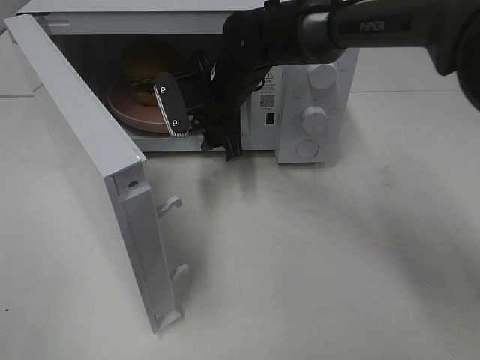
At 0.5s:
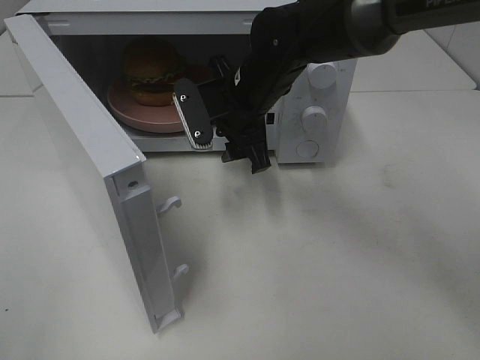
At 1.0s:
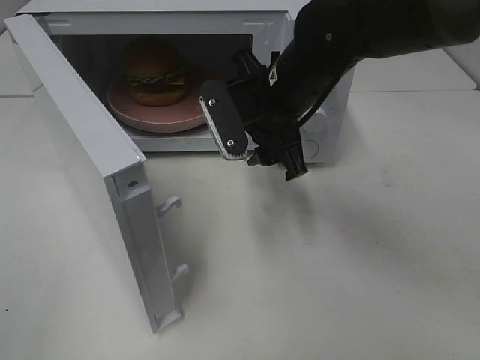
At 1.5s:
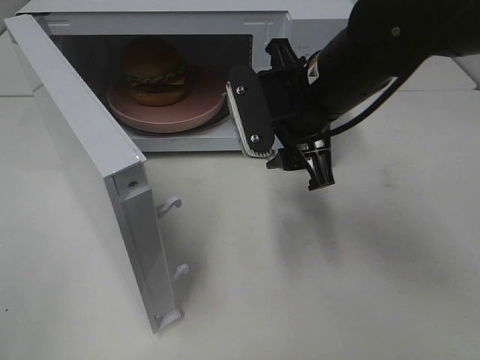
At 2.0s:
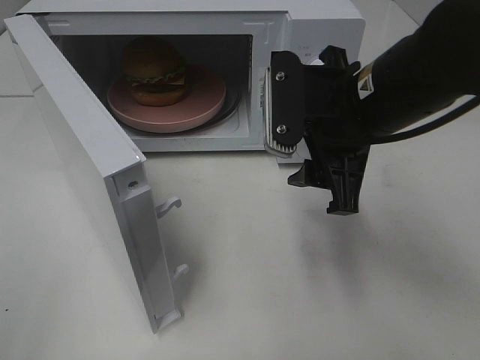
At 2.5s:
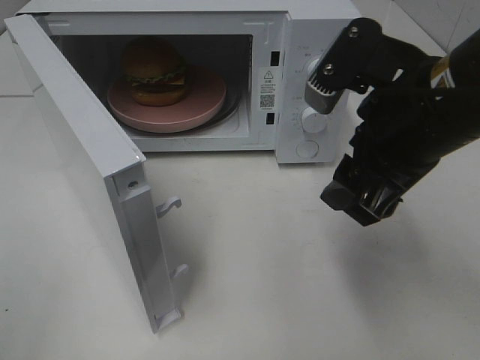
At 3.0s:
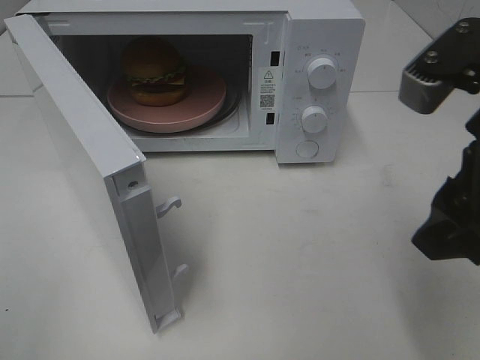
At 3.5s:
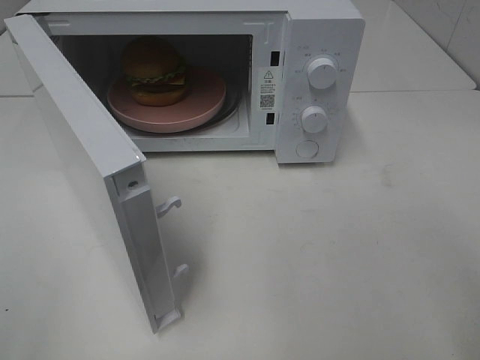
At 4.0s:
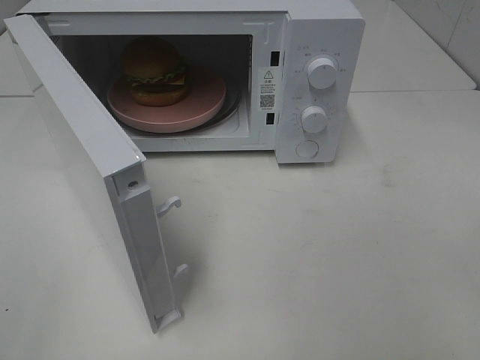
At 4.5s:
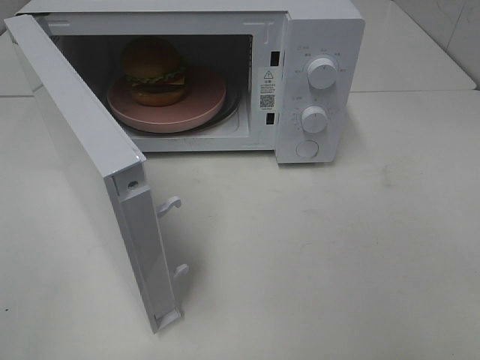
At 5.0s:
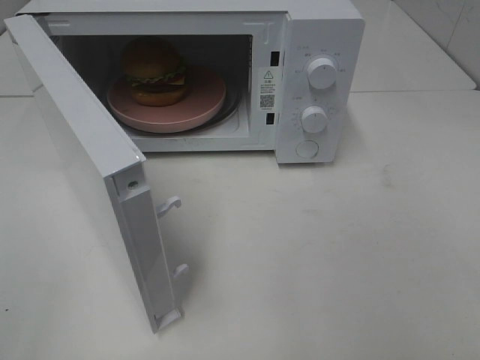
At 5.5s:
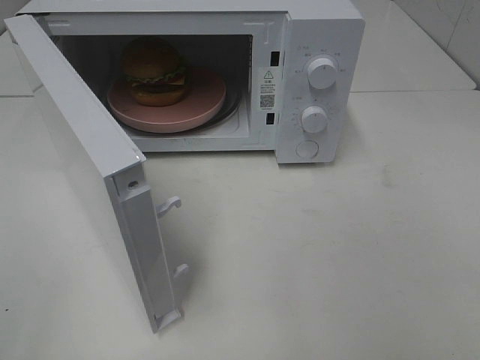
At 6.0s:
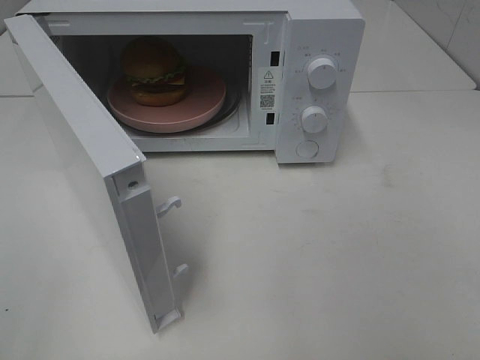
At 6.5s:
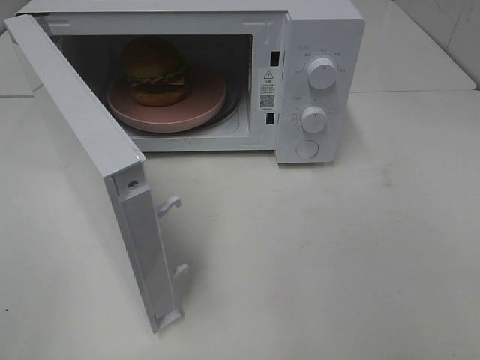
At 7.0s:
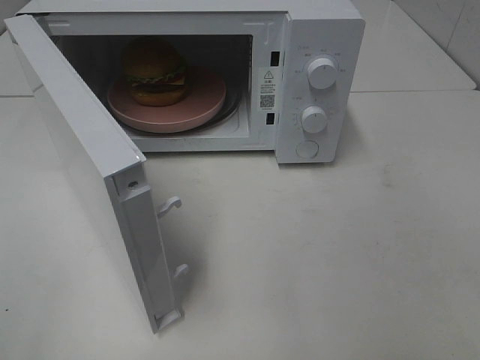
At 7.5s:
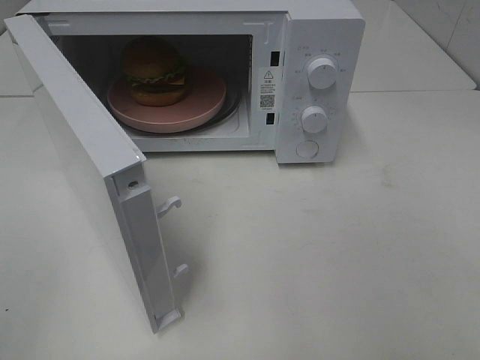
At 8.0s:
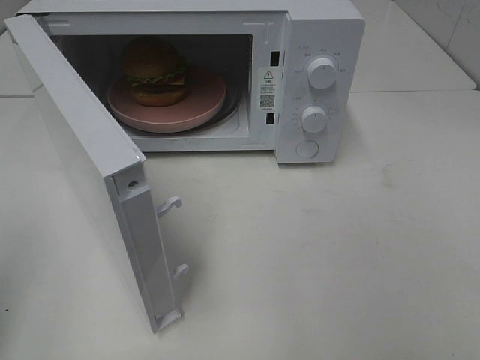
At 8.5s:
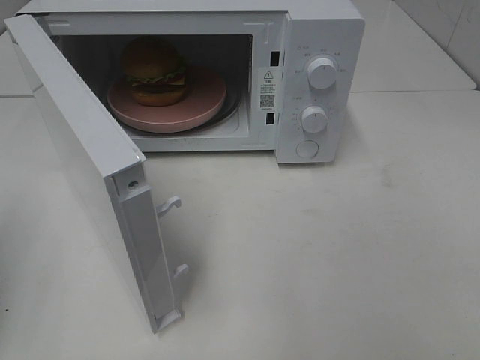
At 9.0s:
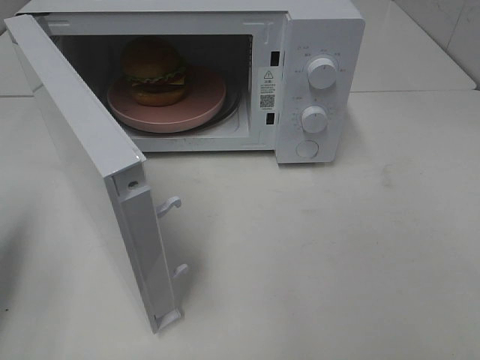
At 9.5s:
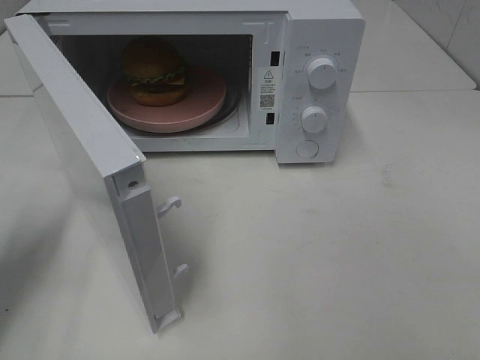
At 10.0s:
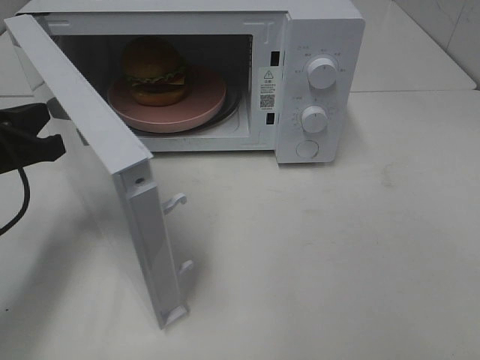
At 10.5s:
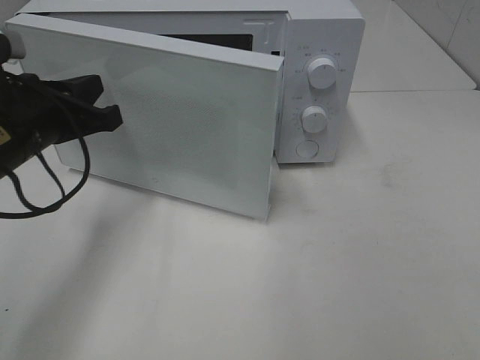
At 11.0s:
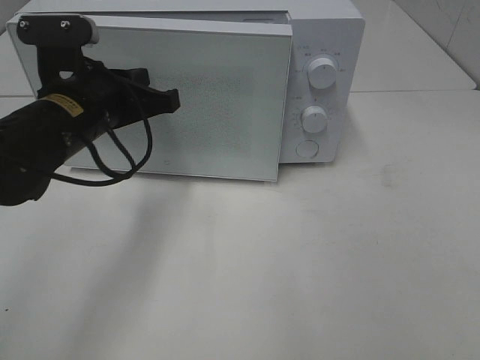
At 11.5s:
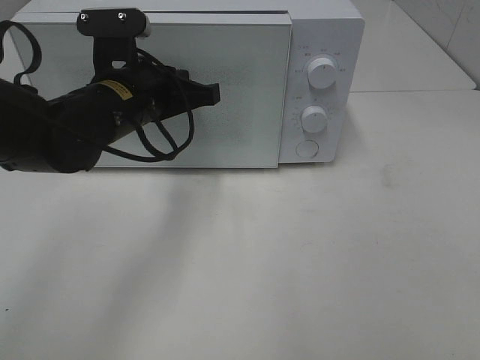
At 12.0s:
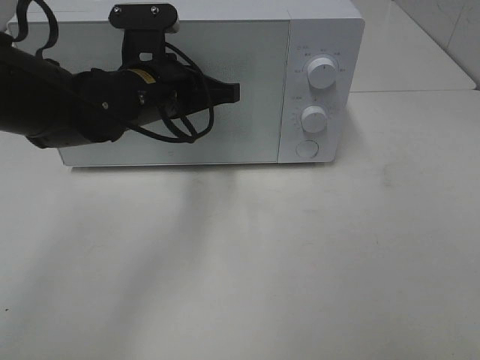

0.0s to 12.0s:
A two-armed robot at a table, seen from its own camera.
Task of the whole recording: Heat the burger.
0.0s to 2.0s: The right gripper shifts some 20 cm backward, to the right and upward.
2.0s to 4.0s: The right gripper shifts some 25 cm backward and to the right.
8.0s to 10.0s: The left gripper travels forward, downward and to the right by roughly 20 cm.
10.0s to 12.0s: The left gripper heads to the right and forward, covering about 20 cm.

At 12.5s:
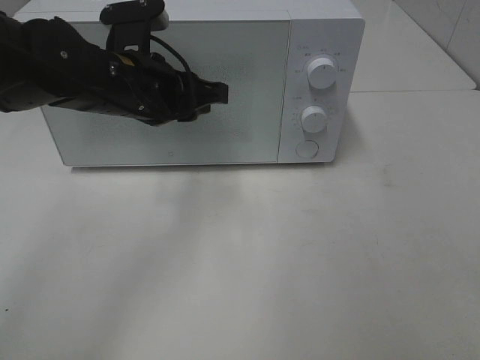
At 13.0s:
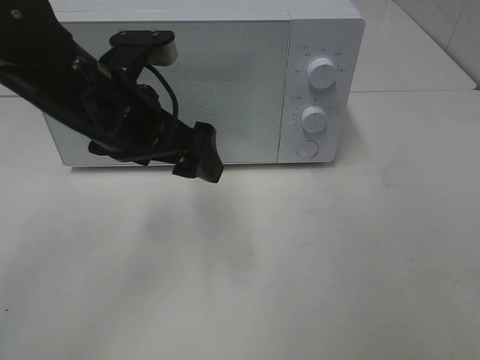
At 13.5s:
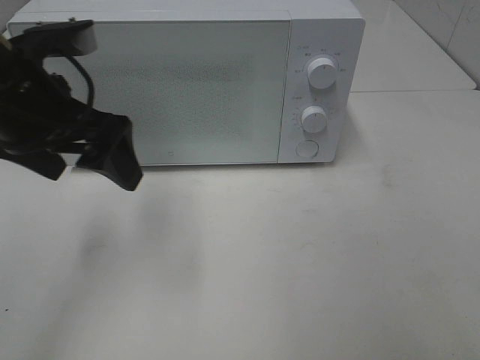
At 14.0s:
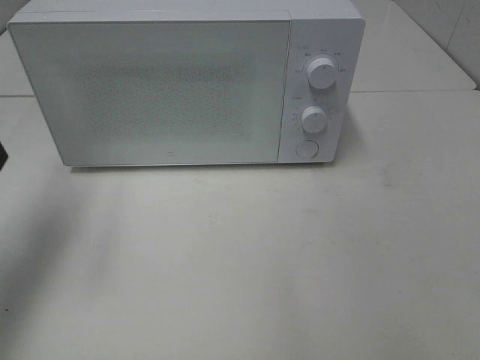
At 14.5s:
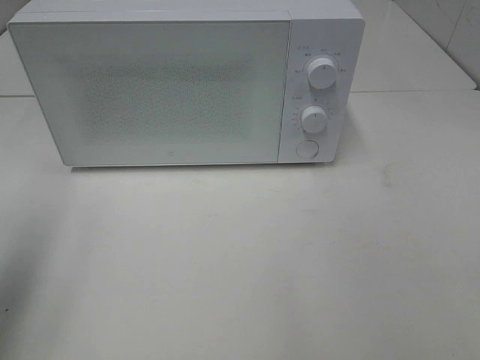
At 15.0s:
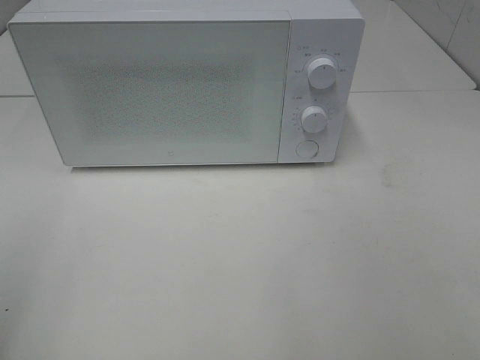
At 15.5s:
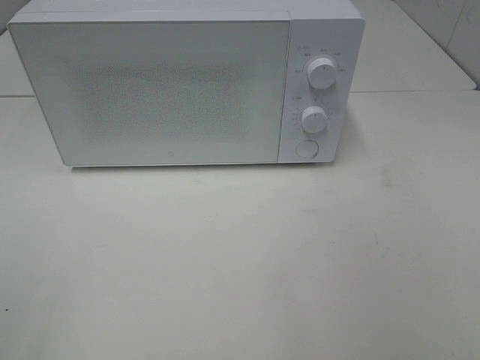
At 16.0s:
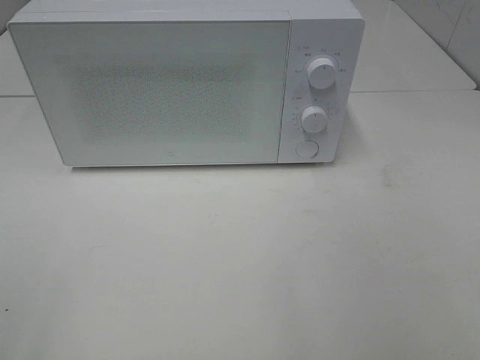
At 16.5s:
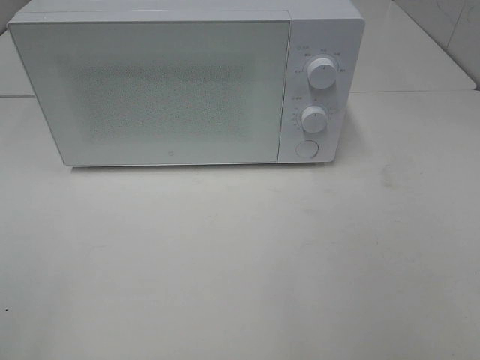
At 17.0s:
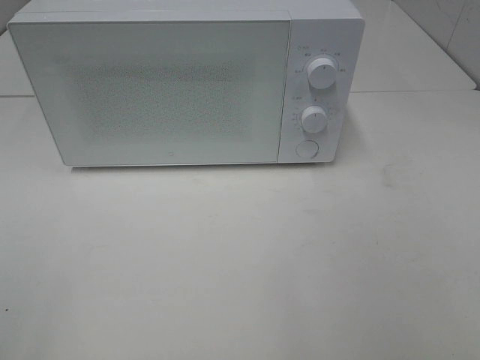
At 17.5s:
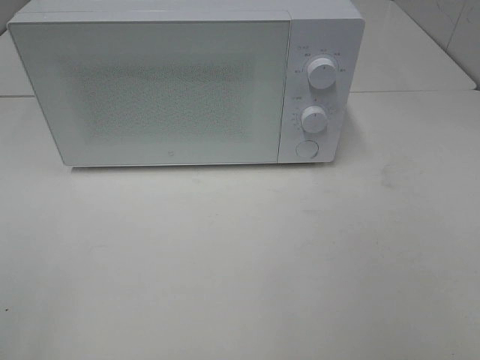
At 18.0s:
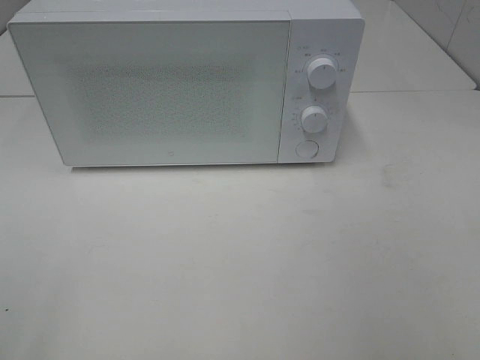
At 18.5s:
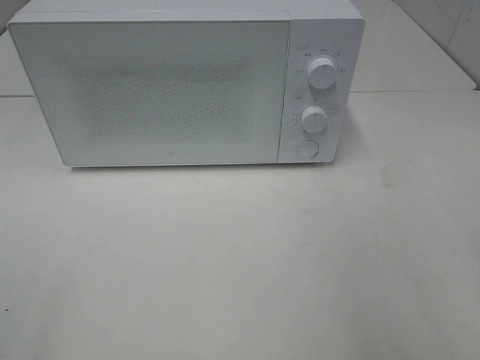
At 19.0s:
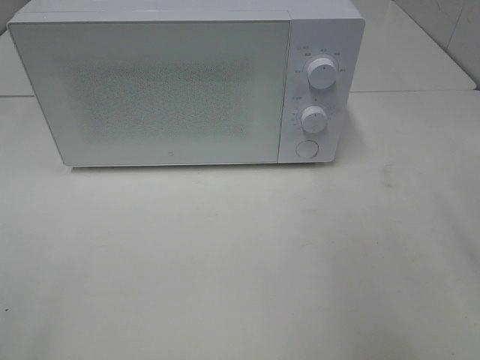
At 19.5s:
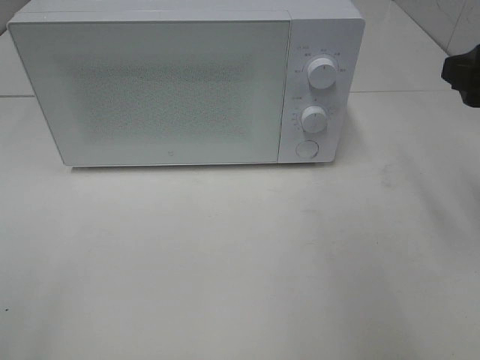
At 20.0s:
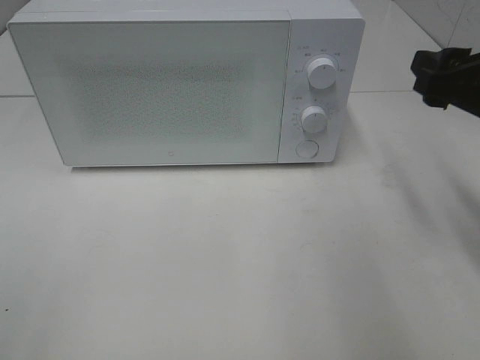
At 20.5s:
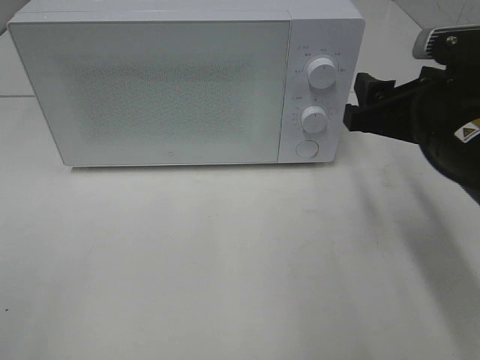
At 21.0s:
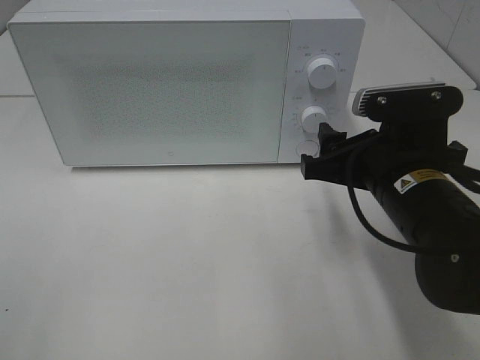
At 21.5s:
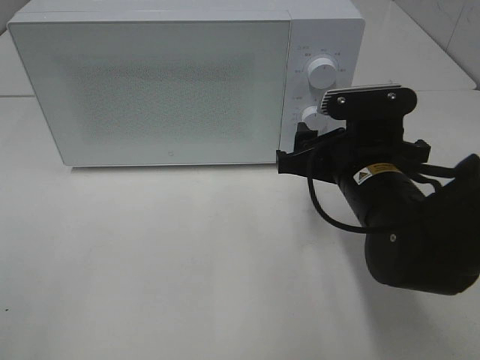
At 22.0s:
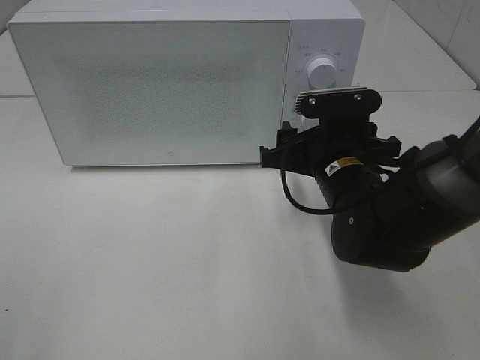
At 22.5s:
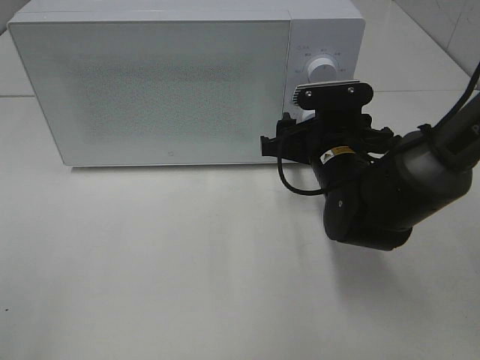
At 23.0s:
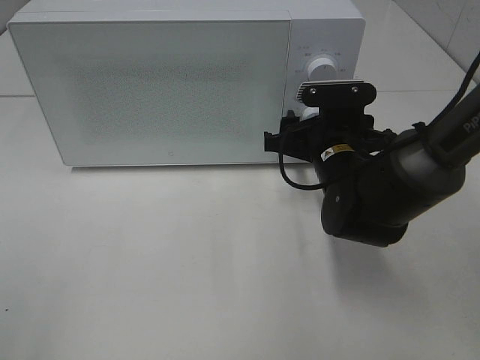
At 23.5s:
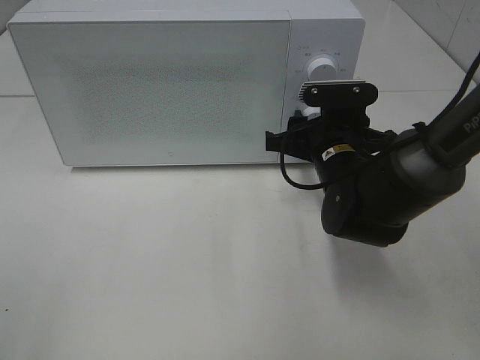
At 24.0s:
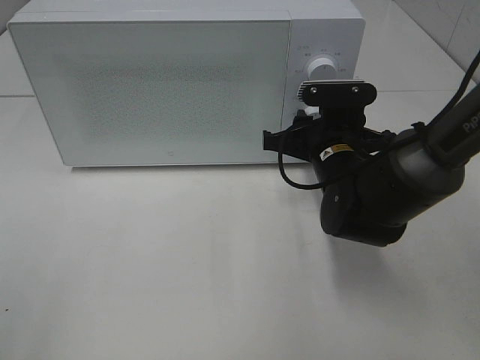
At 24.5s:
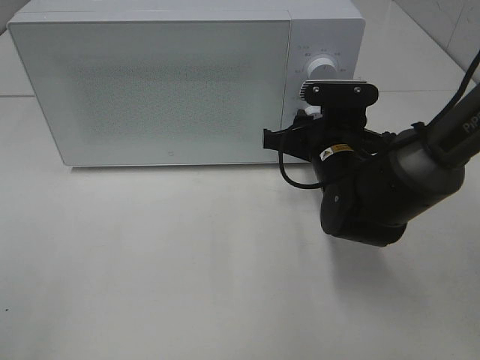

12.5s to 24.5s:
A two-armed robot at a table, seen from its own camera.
Task of the whole recording: Heat the burger.
12.5s to 14.5s: The left gripper heads to the left, backward and upward, covering roughly 30 cm, and opens its fingers.
14.5s to 16.5s: The left gripper heads backward, covering approximately 15 cm.
18.5s to 20.5s: The right gripper is displaced forward, downward and to the left by roughly 20 cm.
20.5s to 22.5s: The right gripper goes some 15 cm downward, forward and to the left.
22.5s to 24.5s: The grippers move only a little.

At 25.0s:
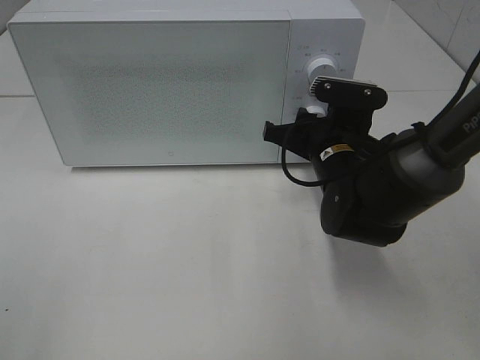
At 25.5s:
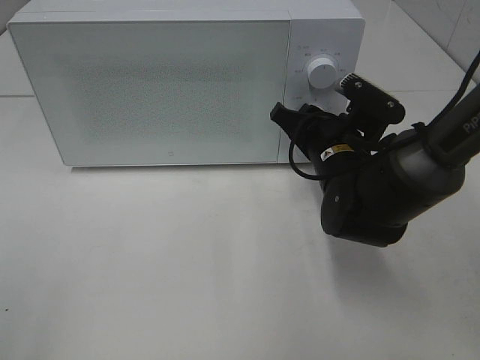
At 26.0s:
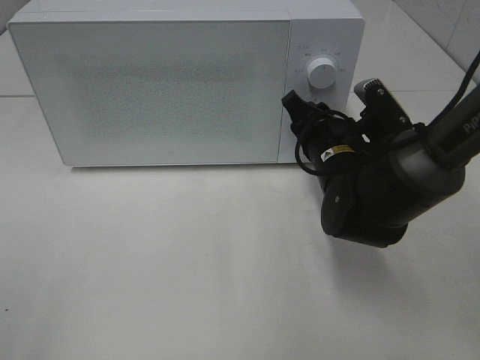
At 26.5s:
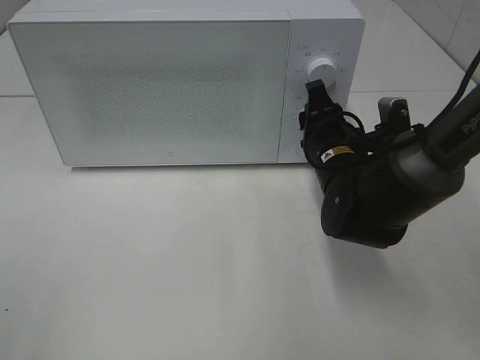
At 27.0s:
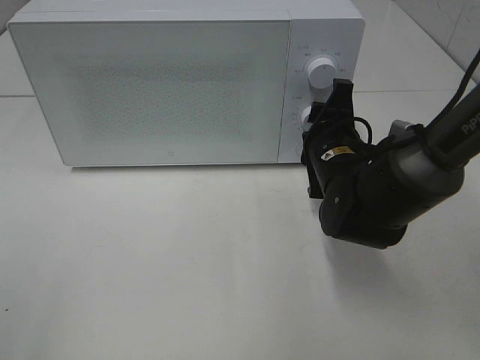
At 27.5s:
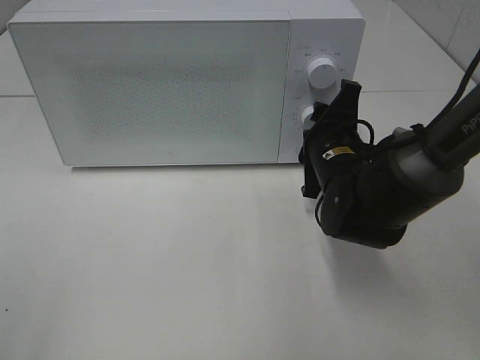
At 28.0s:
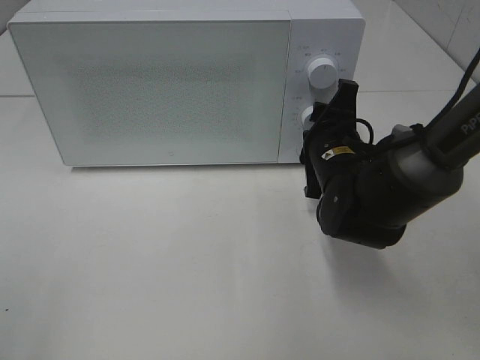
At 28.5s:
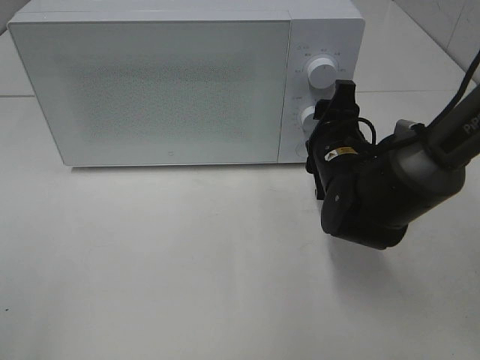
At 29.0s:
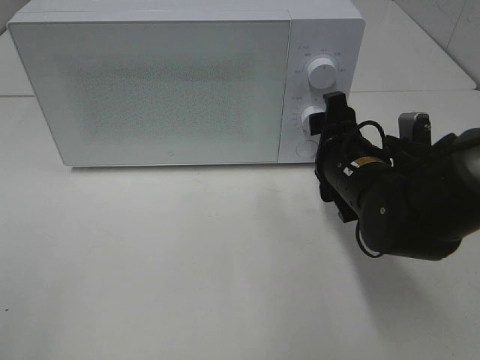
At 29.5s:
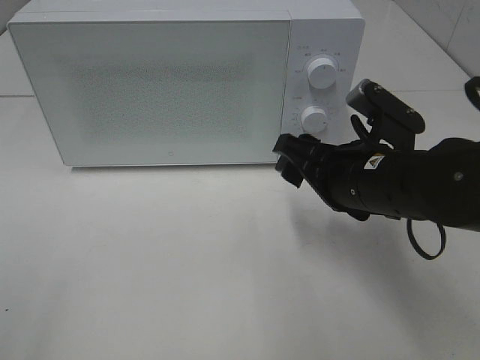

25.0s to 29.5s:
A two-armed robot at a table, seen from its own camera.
Task of the whole recording: Heat the burger.
Step, 25.0s to 28.5s: Right hand: twist timer button.
27.0s to 29.5s: The right gripper moves backward, about 10 cm.
